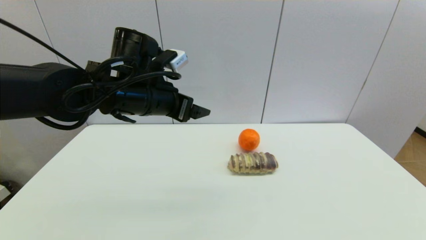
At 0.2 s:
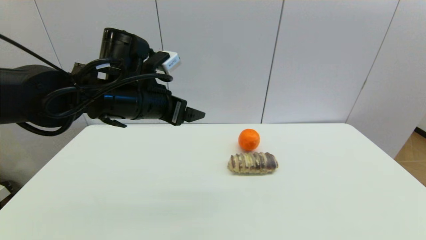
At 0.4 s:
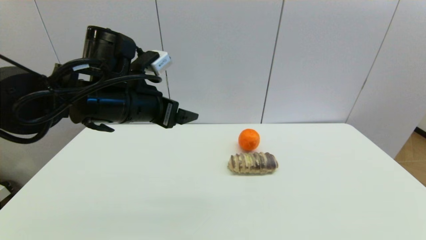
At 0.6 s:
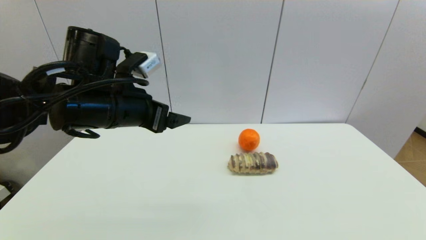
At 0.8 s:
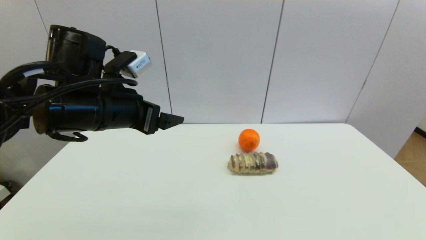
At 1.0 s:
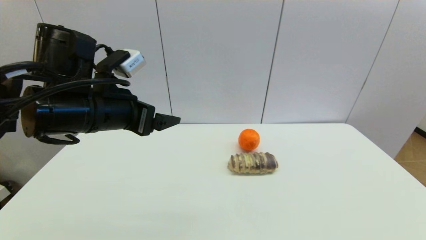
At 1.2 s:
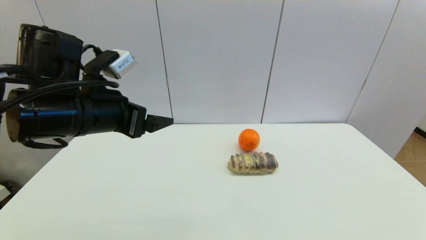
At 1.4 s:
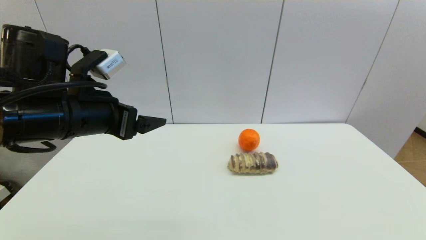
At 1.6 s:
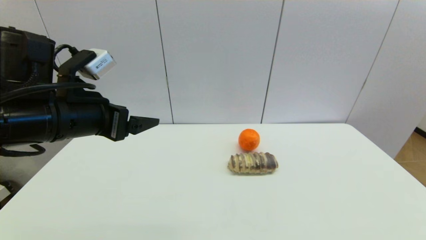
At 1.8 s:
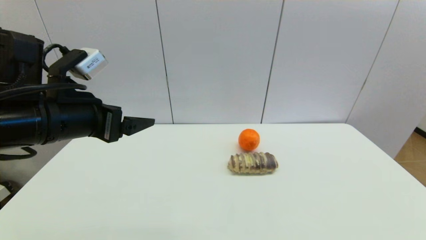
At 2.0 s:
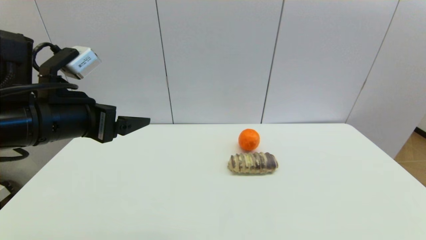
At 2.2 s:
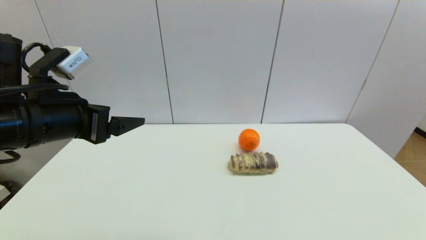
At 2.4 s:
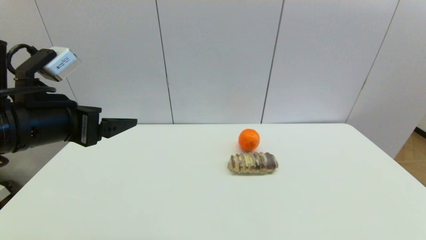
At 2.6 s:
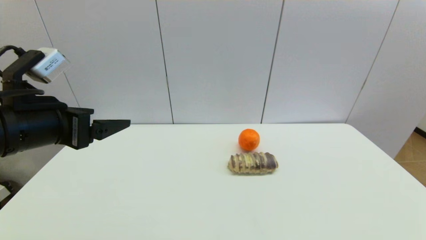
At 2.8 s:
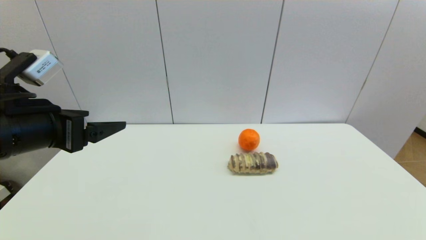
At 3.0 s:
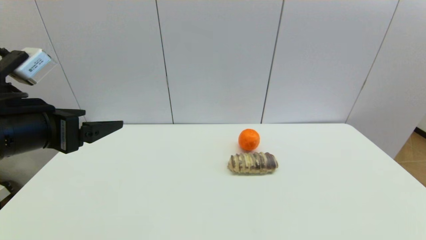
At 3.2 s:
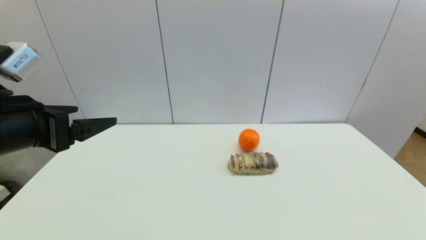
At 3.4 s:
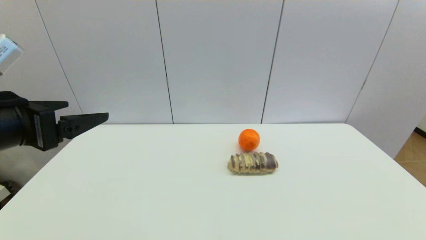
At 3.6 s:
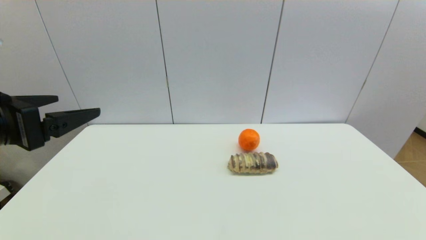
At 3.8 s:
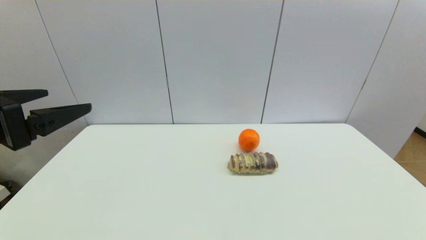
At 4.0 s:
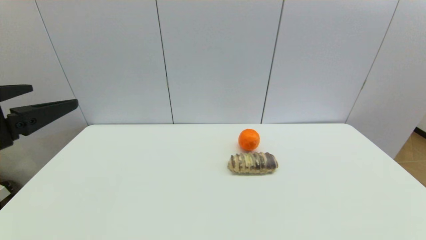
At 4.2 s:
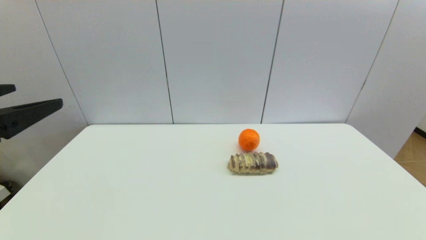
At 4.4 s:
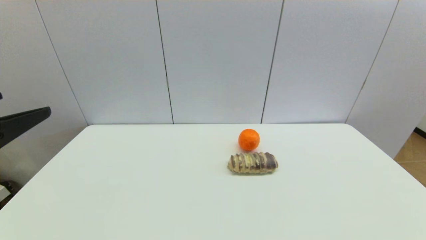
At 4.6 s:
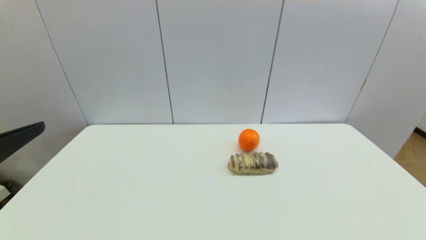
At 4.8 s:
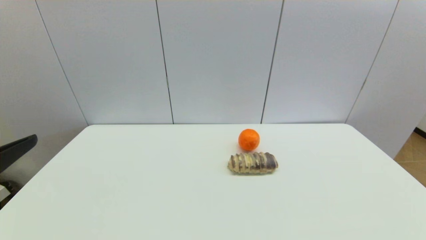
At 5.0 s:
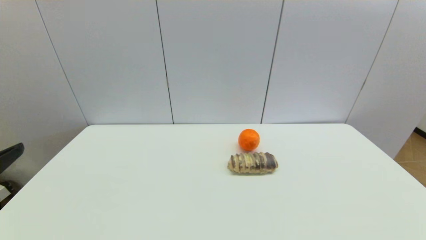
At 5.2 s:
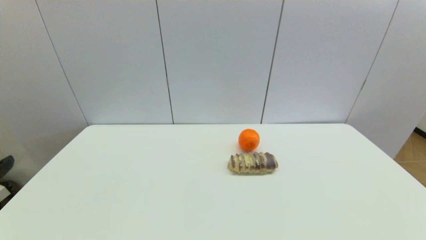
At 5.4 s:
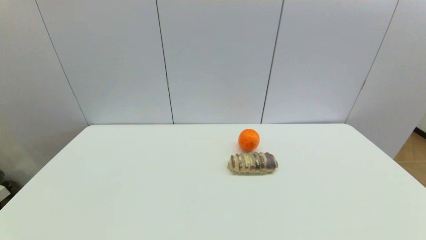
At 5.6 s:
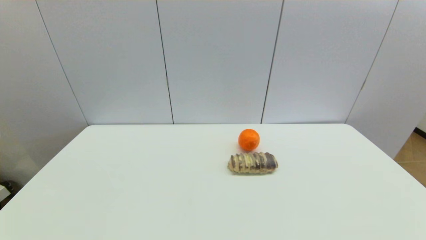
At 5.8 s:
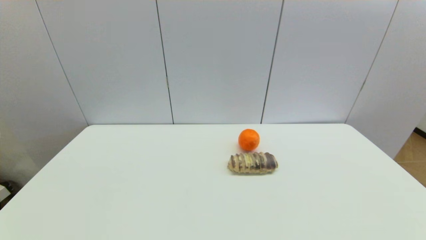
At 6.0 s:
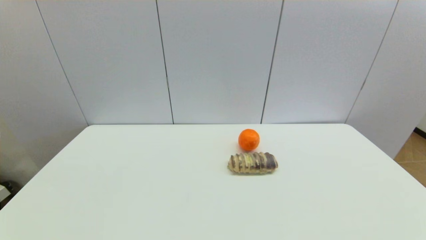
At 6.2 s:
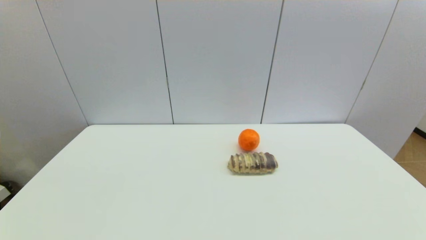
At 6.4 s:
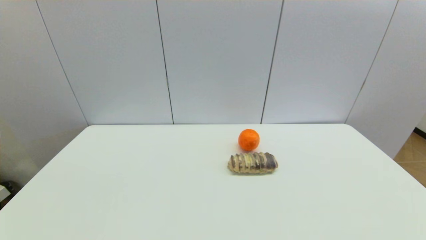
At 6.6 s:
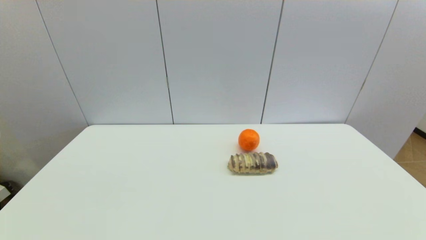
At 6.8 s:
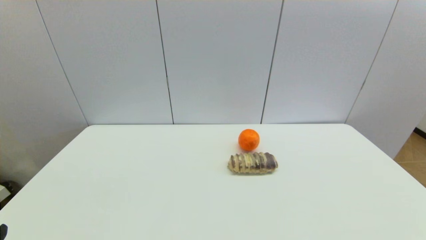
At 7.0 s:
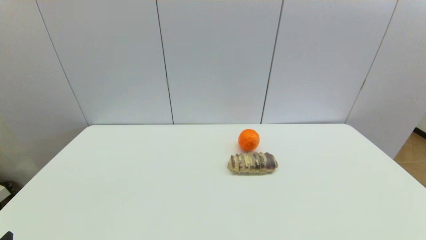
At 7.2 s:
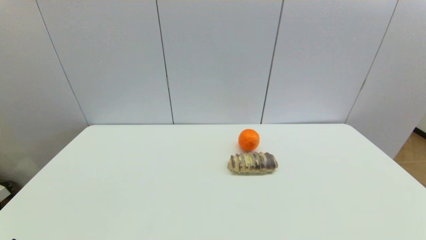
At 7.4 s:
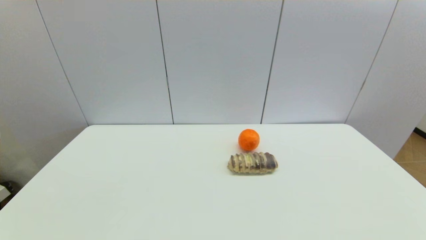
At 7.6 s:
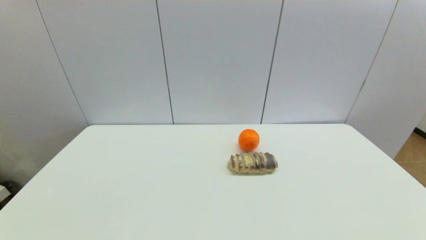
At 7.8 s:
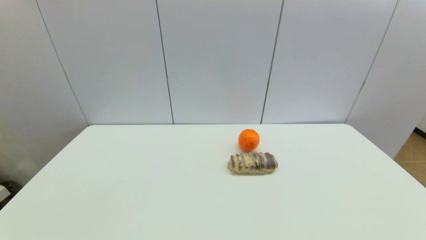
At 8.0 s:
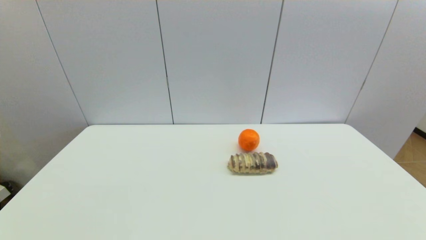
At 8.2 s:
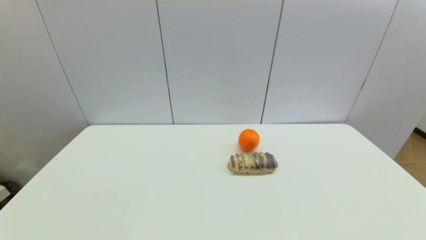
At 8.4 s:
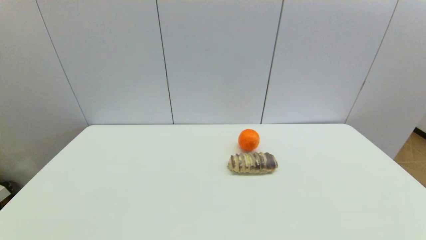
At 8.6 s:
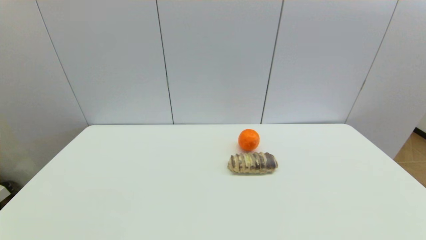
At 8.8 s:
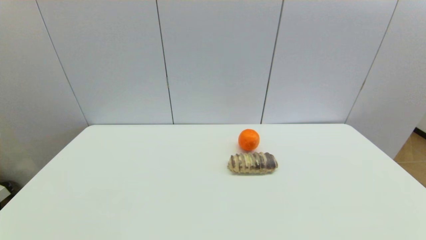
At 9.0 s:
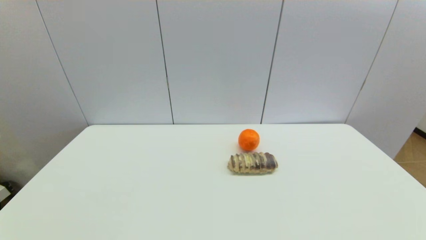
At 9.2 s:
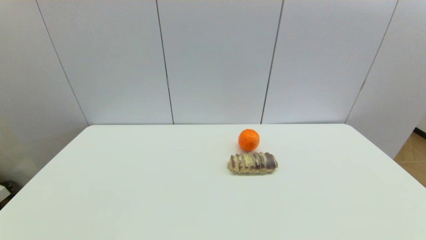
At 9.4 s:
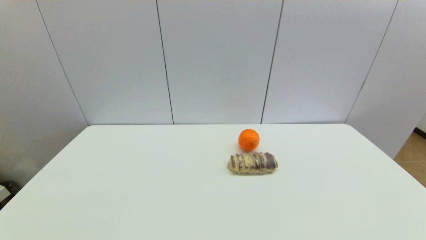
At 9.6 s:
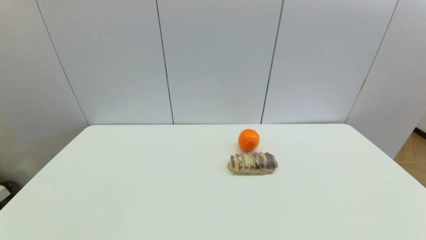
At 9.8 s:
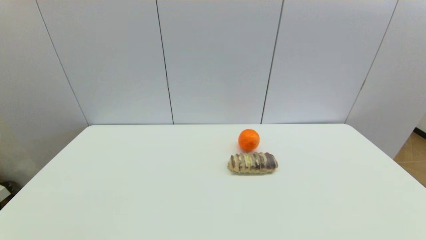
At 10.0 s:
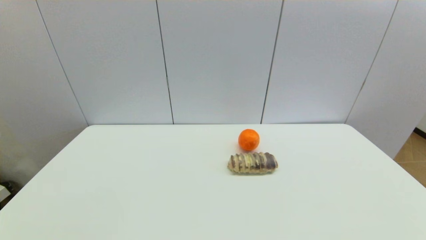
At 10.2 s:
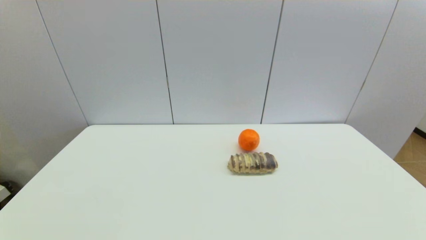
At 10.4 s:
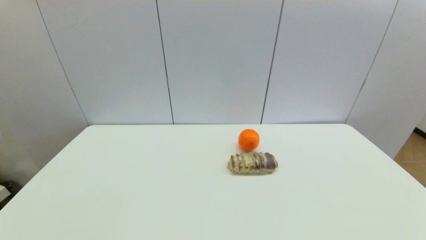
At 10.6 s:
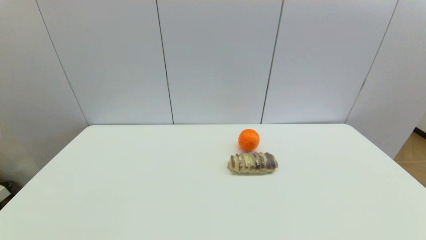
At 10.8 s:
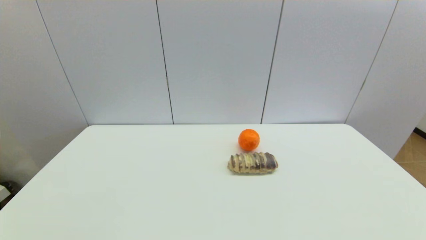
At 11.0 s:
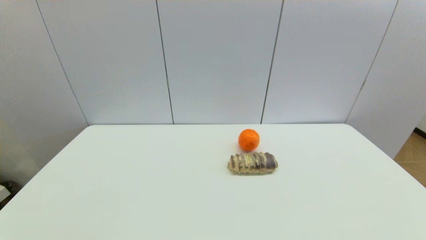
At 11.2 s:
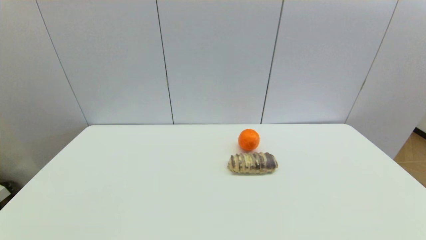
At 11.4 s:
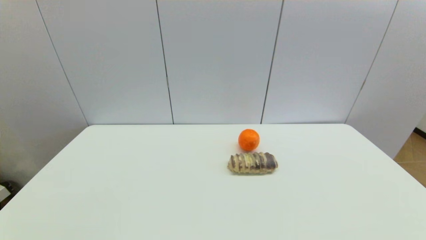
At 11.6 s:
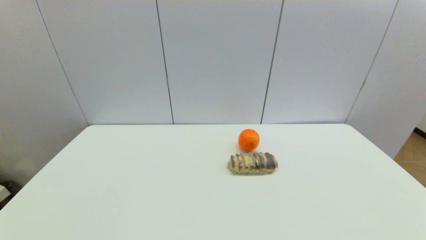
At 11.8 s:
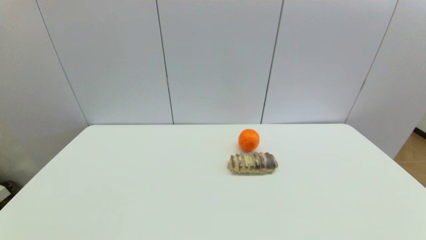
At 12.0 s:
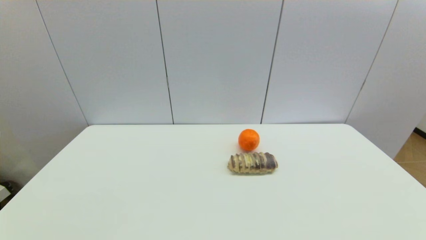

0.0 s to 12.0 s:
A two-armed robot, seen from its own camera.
0.0 to 1.6 s: The left gripper travels to the left and backward by some 10 cm.
1.6 to 3.0 s: The left gripper shifts by some 5 cm.
3.0 to 4.4 s: The left gripper travels backward by some 10 cm.
4.4 to 6.0 s: The left gripper goes about 15 cm backward and downward.
9.0 to 10.4 s: Both grippers stay put.

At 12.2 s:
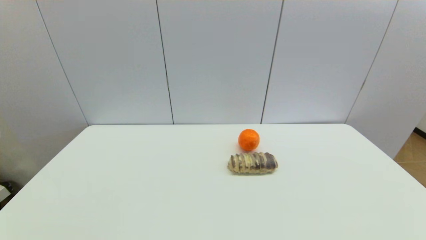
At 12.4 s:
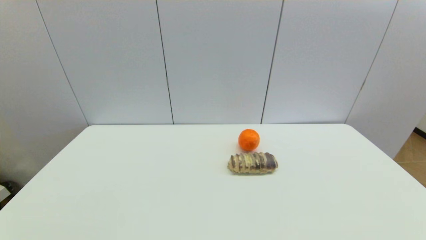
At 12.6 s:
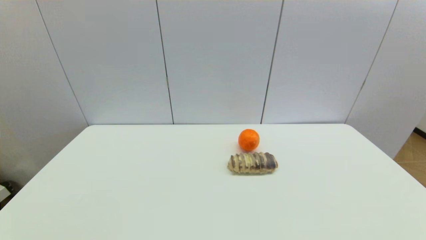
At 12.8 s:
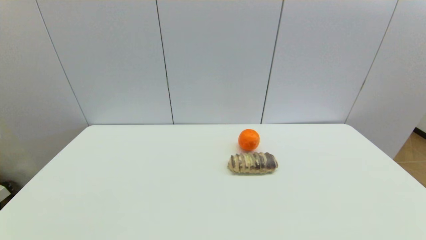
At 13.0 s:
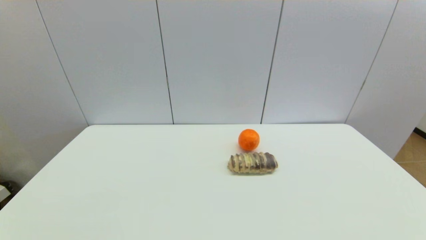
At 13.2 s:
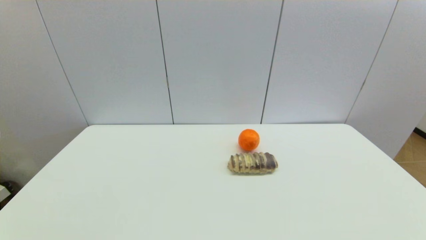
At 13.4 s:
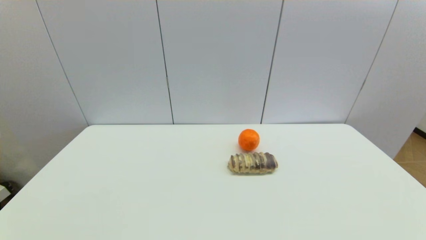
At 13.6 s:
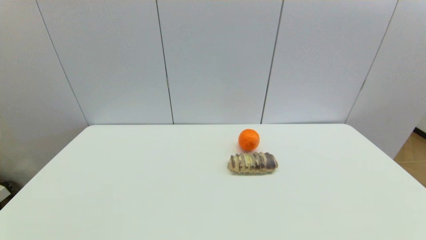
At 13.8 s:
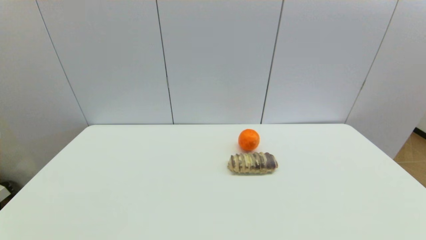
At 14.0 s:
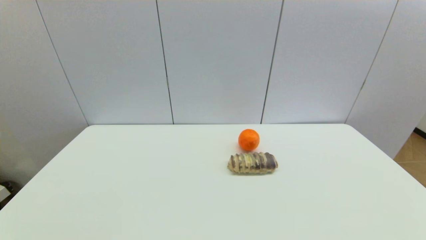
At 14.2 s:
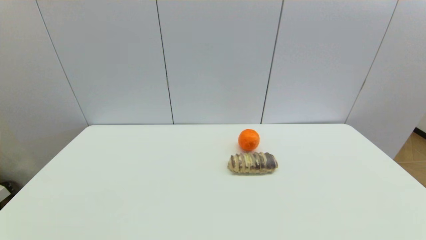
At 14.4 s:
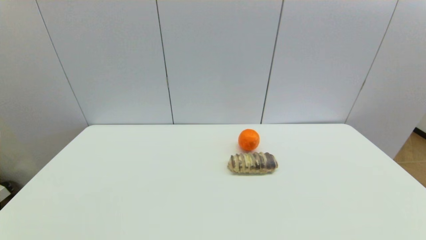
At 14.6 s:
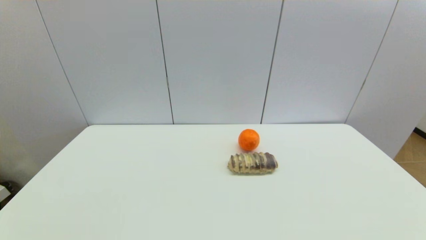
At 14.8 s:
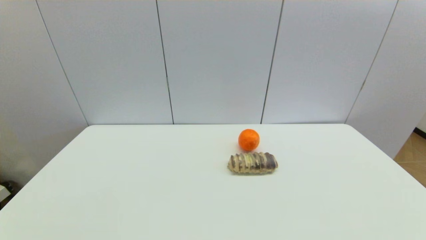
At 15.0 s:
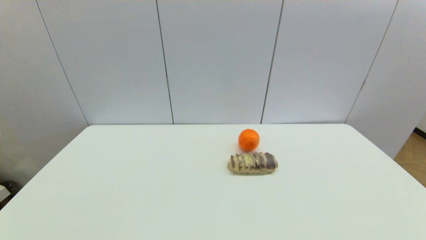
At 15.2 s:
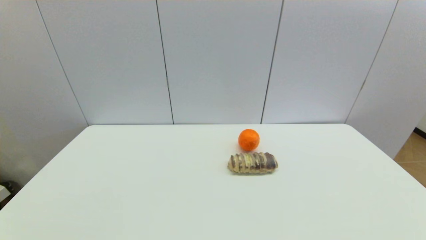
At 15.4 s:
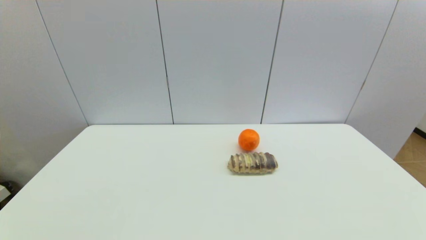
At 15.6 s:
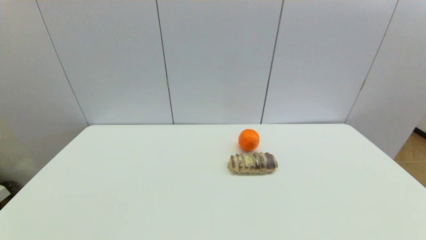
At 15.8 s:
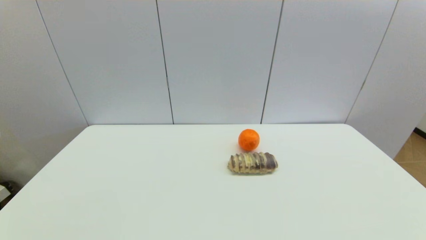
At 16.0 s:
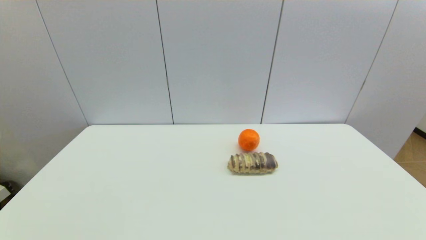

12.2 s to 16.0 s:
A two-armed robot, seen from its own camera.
12.2 to 16.0 s: The two grippers keep their place.
